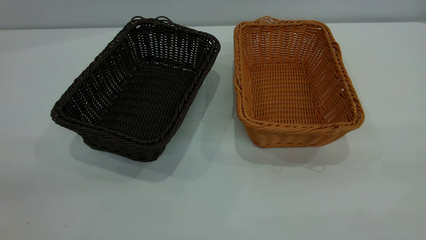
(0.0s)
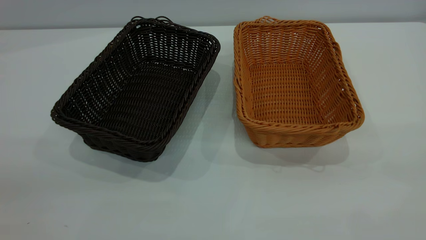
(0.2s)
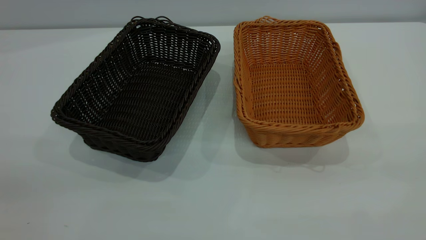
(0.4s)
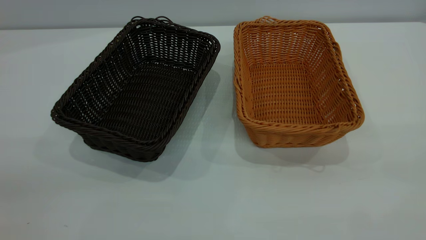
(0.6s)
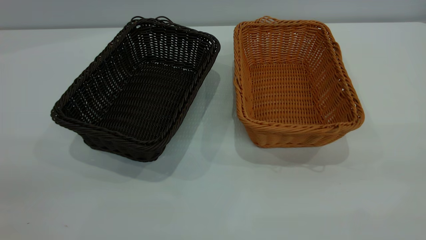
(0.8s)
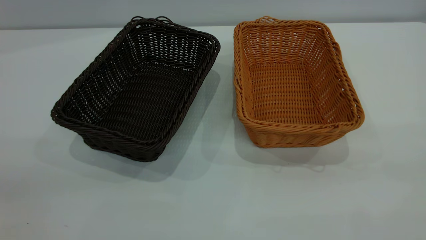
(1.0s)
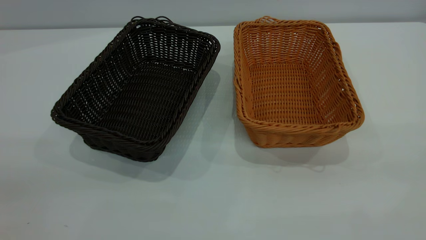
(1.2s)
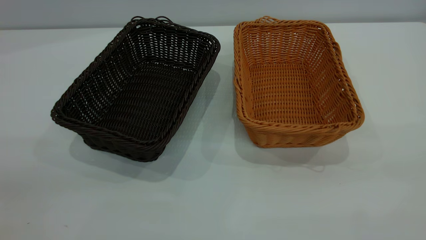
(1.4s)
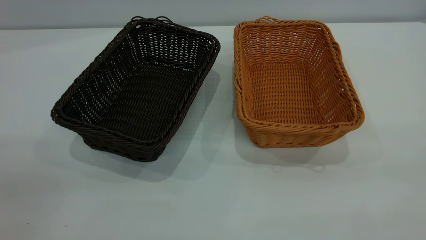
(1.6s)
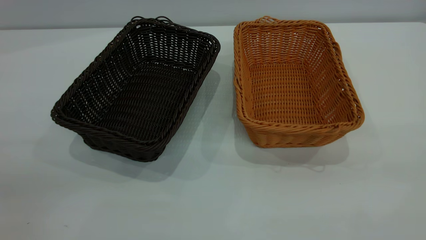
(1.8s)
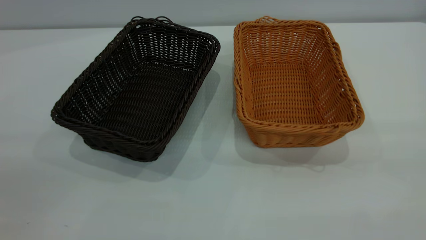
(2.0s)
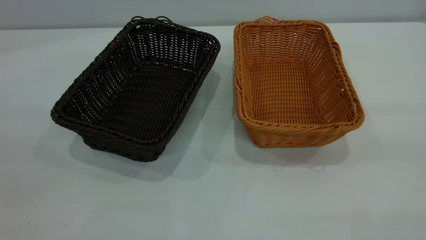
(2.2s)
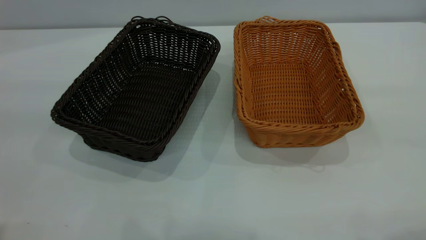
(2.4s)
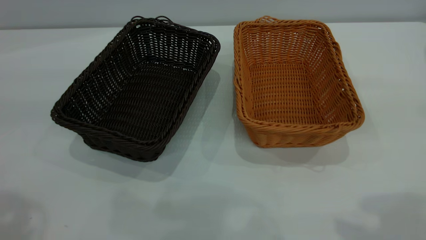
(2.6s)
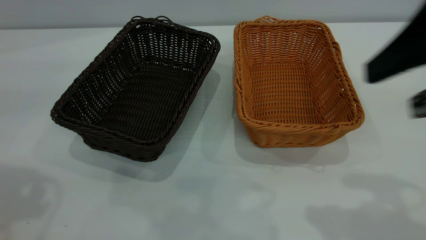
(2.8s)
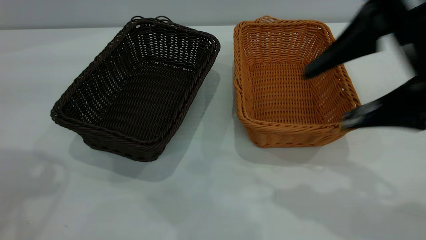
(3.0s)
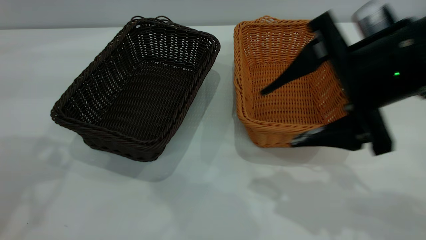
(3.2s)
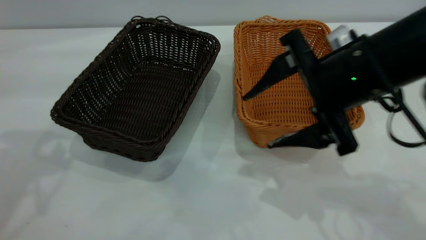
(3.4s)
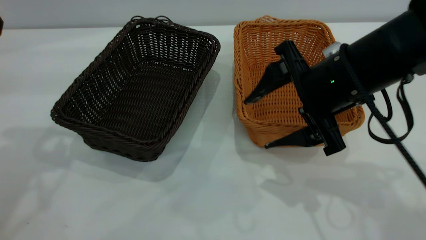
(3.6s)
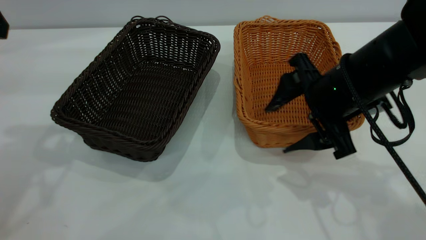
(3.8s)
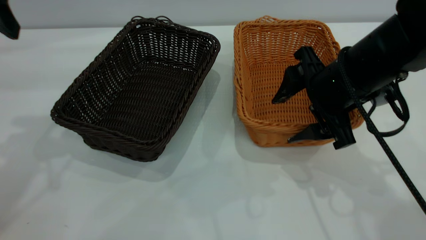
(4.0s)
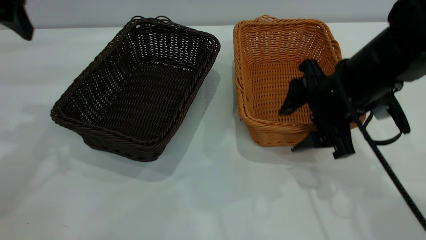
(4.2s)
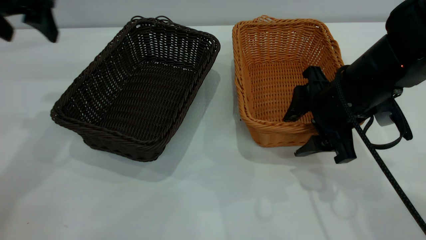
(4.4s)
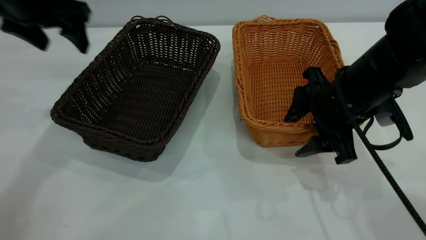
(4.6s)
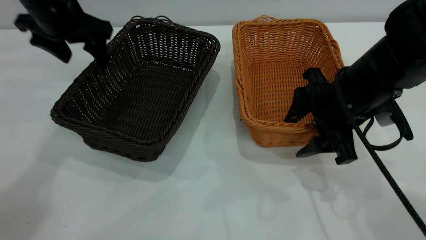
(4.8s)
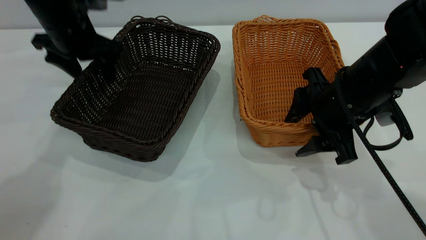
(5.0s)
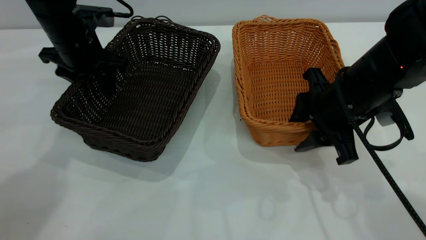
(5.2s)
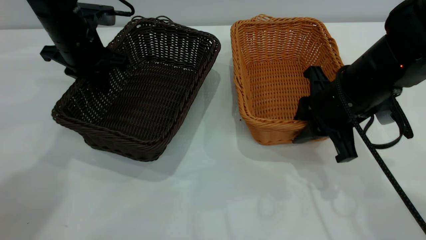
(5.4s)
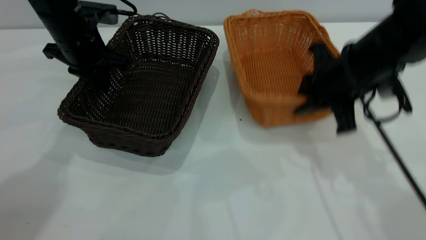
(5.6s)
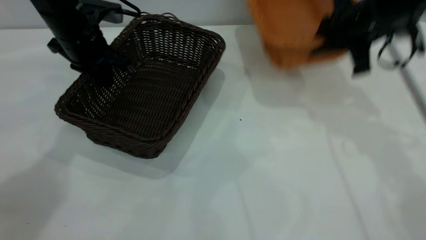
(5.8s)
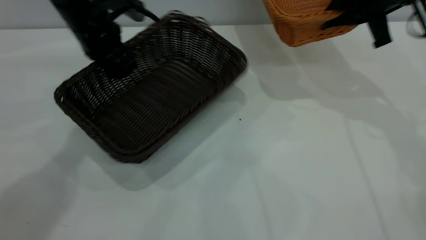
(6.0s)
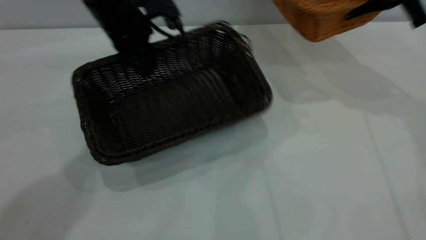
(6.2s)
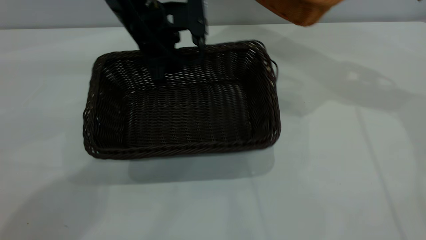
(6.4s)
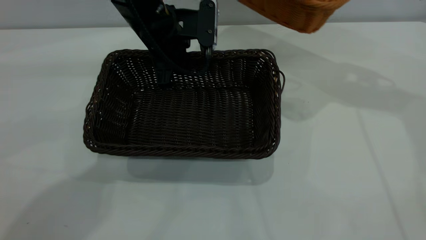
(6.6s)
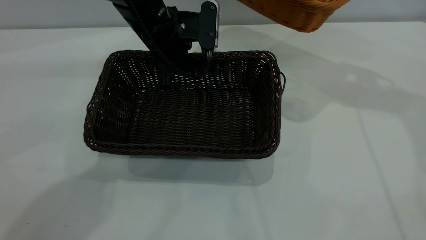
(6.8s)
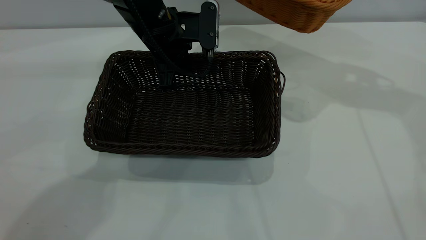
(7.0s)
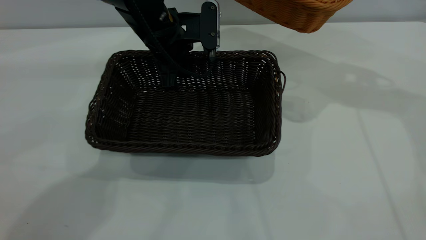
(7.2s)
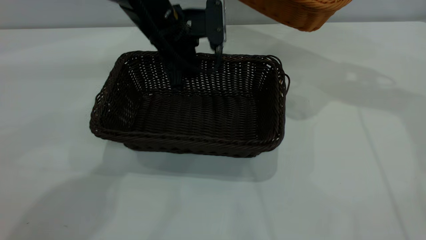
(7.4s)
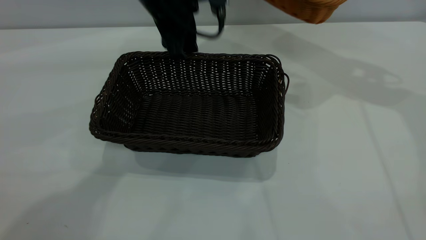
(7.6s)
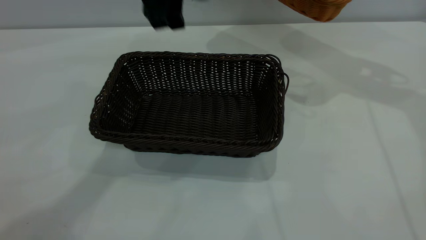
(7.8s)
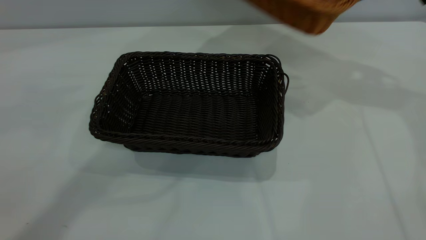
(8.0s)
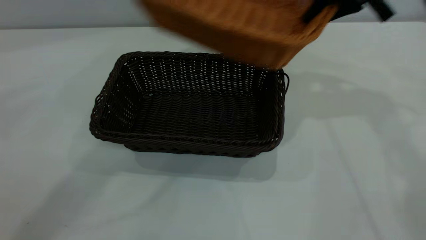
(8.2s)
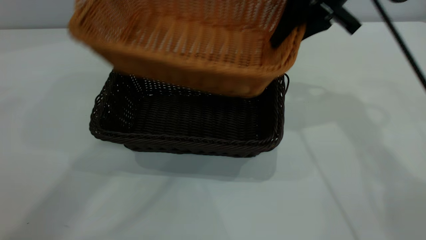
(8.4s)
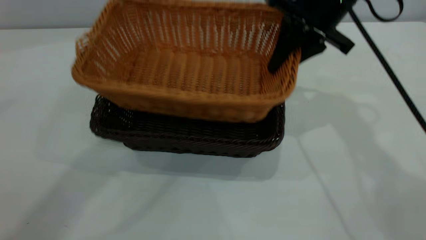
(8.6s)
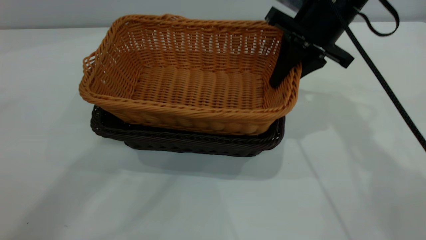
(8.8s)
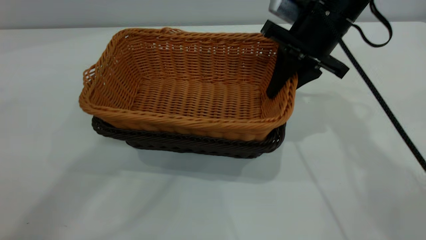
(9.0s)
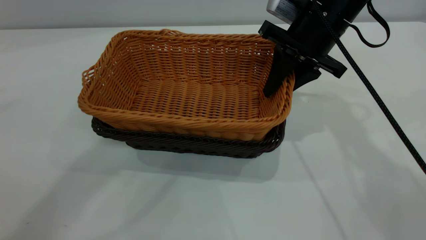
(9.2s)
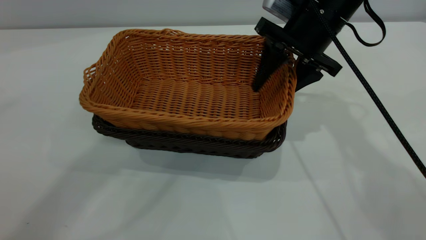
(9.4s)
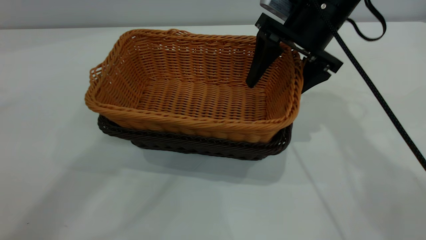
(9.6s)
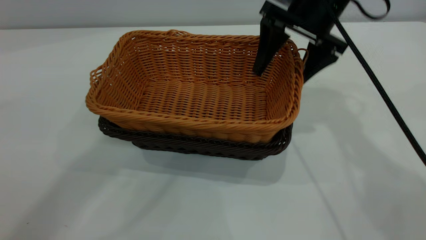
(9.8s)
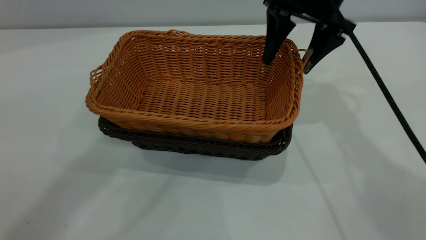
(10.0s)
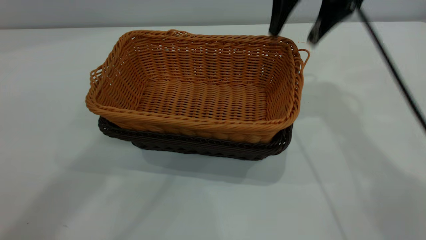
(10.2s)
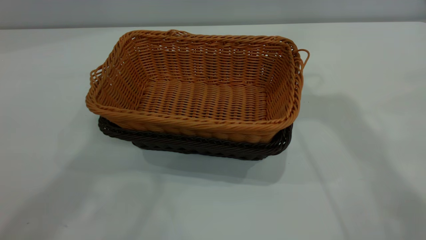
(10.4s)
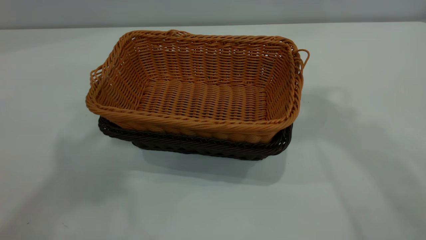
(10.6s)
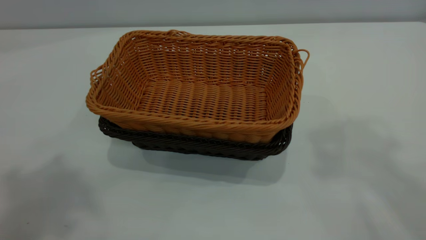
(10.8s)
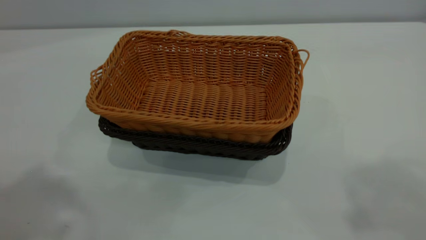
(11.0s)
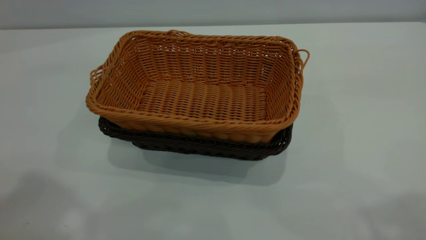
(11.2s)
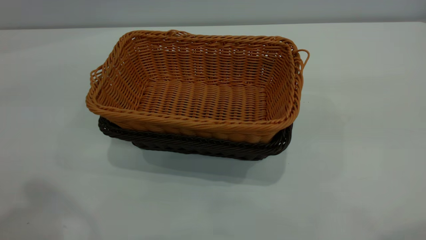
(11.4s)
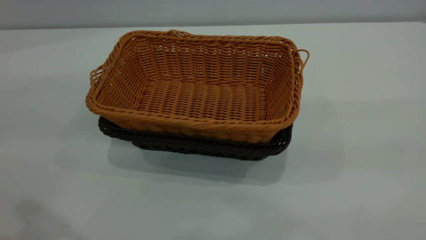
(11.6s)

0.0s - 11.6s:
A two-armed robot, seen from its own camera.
Task of the whole recording: the left gripper grasp the black basket and place it in the center of the table, the right gripper grasp the brown basket and place it inside the black one.
Step, 0.0s - 5.8s: Pick up the light basket with the right gripper.
Step, 6.0s - 7.6s: Move the dark basket to the center of view.
Step, 7.8s - 10.2s: Place the light basket on the dark basket.
0.0s - 1.4s: Neither gripper changes place.
1.4s - 2.8s: The right gripper shifts some 20 cm forward, and opens up.
2.8s - 4.4s: The left gripper is displaced forward and downward by approximately 20 cm. The right gripper is displaced downward and forward by roughly 20 cm.
4.4s - 5.8s: The left gripper travels downward, forward and to the right by roughly 15 cm, and closes up. Meanwhile the right gripper heads forward, upward and to the right, covering roughly 15 cm, and closes up.
5.8s - 7.2s: The right gripper moves upward, some 10 cm. Meanwhile the left gripper moves to the right, roughly 15 cm.
7.2s - 8.8s: The right gripper is displaced to the left and downward by some 15 cm, while the left gripper shifts some 35 cm upward.
8.8s - 10.2s: The right gripper is displaced upward by approximately 10 cm, and opens. Meanwhile the left gripper moves about 5 cm.
10.2s - 11.6s: The left gripper travels backward, downward and to the left by about 25 cm. Meanwhile the right gripper heads backward, covering about 35 cm.
